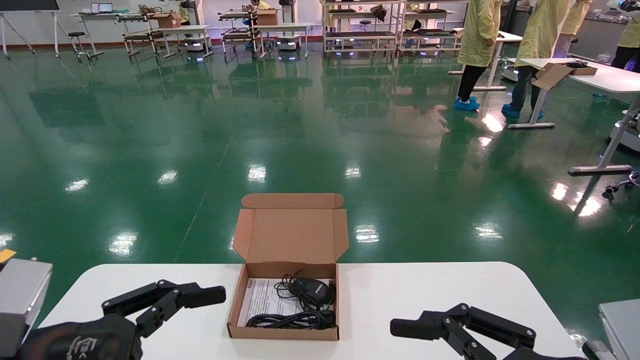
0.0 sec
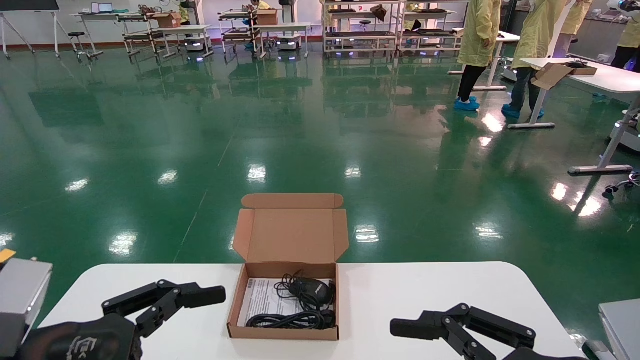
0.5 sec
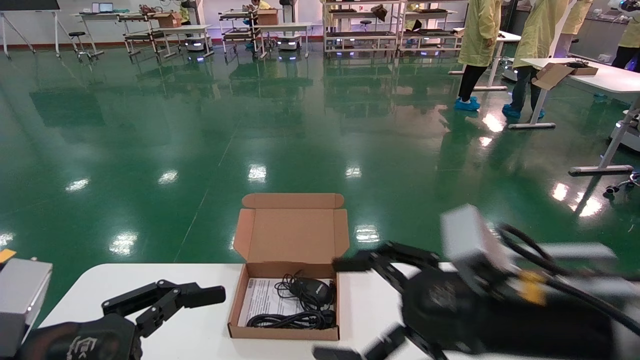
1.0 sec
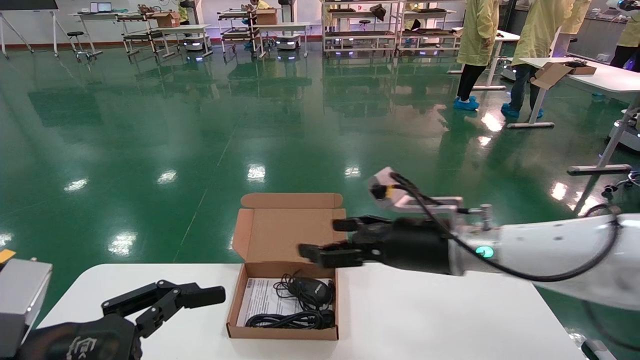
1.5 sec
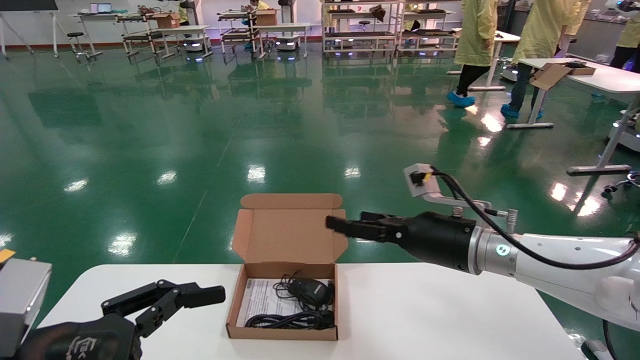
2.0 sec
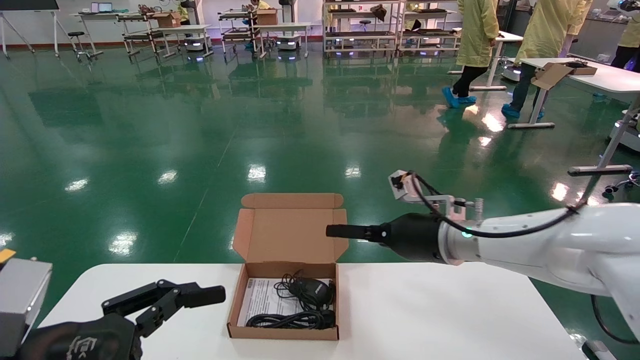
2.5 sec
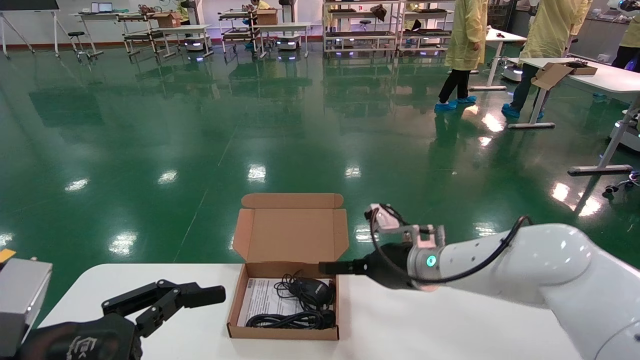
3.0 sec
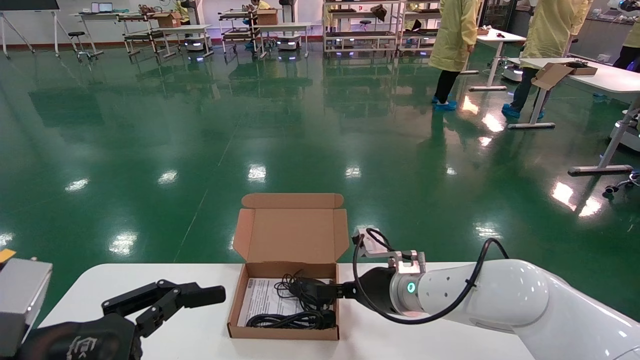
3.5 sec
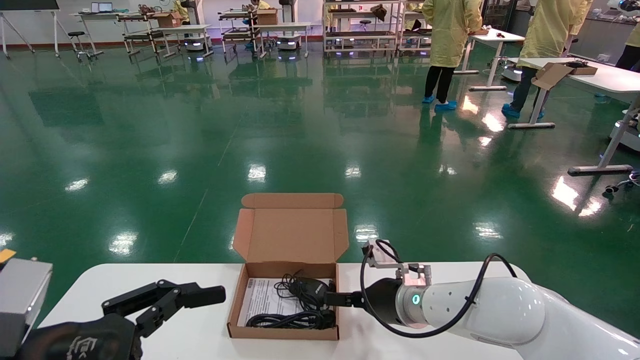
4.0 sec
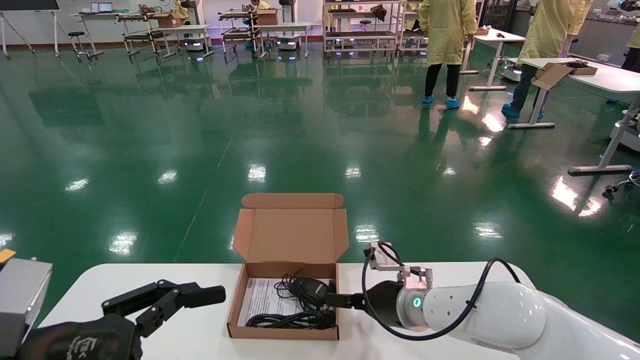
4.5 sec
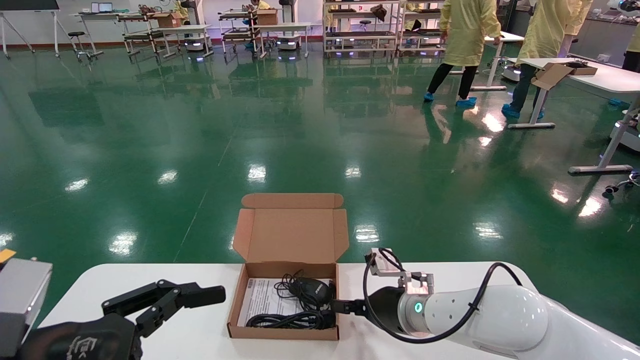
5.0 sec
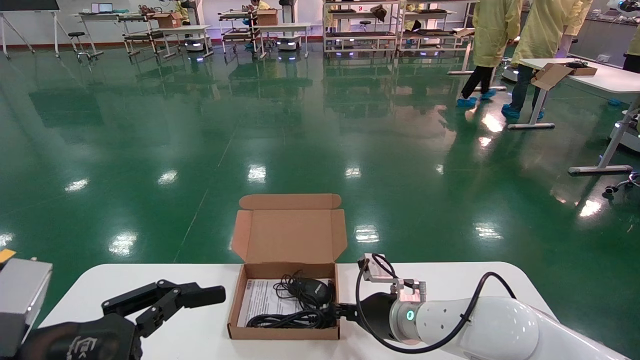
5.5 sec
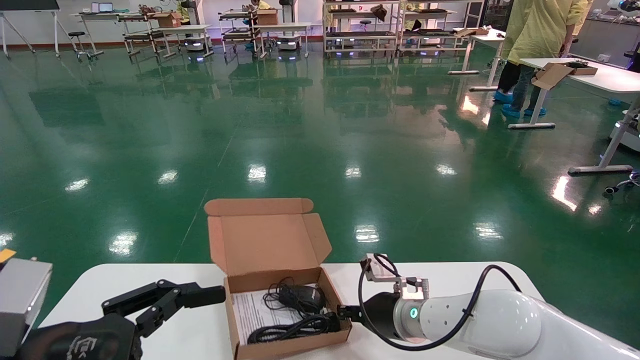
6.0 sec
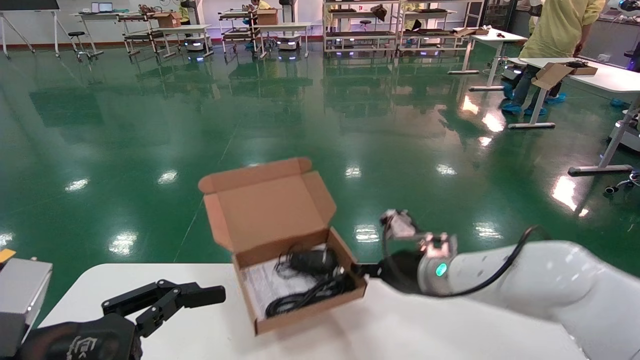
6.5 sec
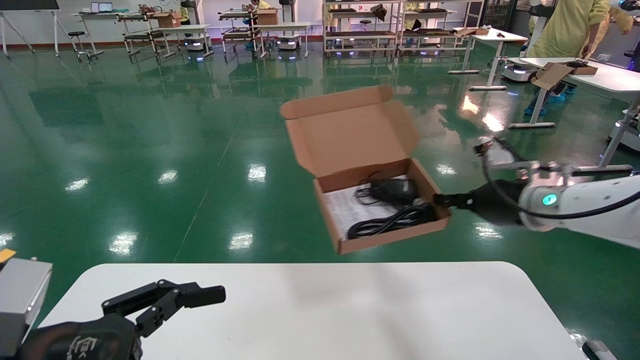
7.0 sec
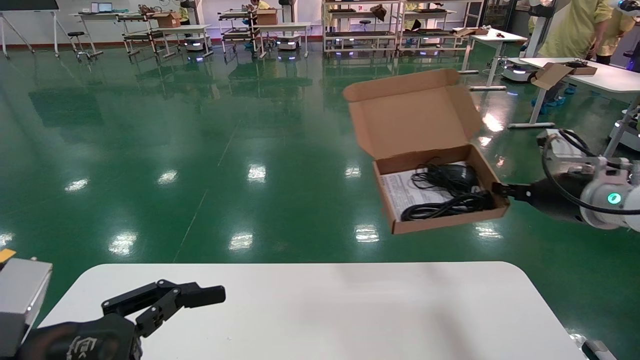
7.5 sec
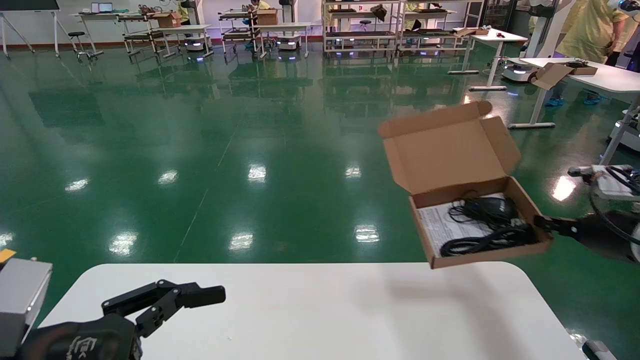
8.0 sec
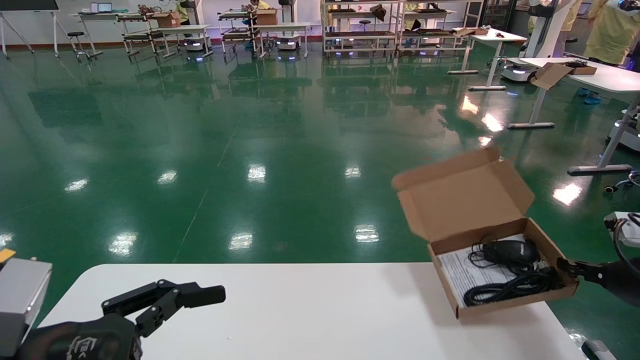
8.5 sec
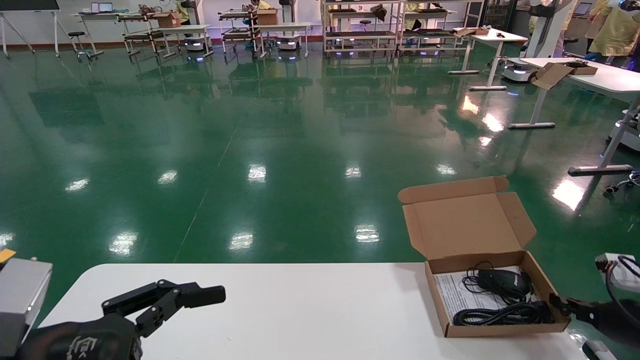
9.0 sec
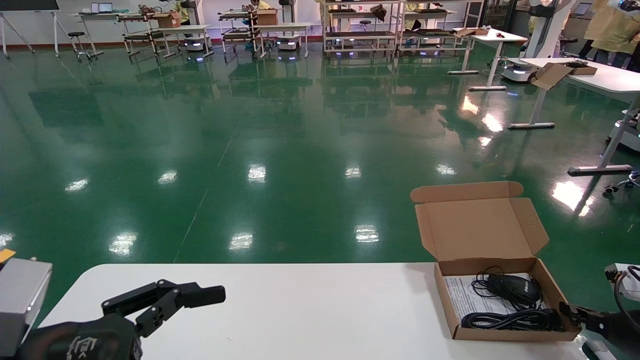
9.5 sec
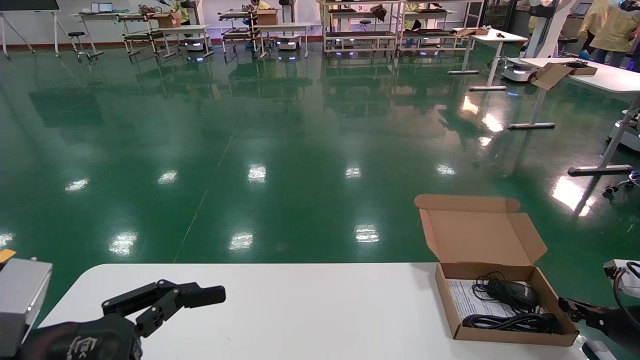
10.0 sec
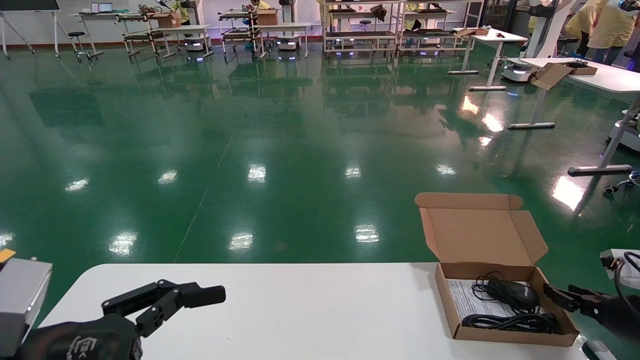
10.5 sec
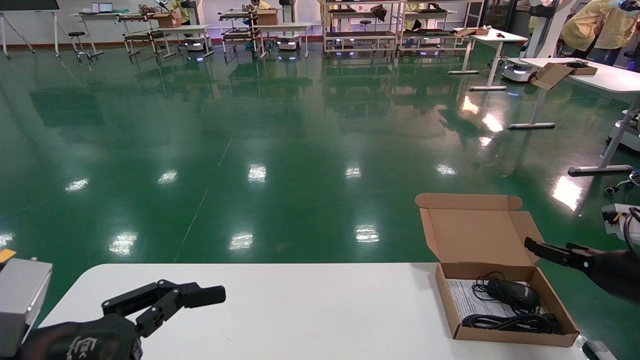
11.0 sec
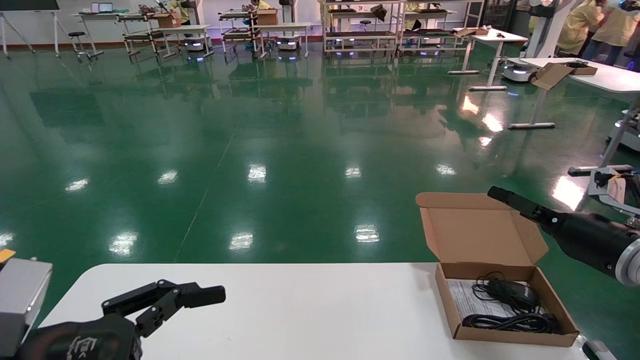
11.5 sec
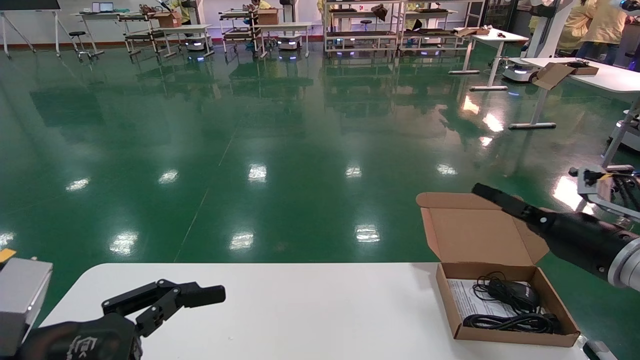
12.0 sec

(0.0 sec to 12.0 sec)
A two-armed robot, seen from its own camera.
Task of the whole recording: move the position of the storage box with accessories on the table.
Step, 1.0 sec - 5.5 sec: Grab and pick up the open mouse box from the accessory packaging area.
Step, 6.0 sec - 10.5 sec: Place the open mouse box onto the operation table.
0.0 sec - 2.0 sec: The right gripper travels forward by roughly 25 cm.
2.0 sec - 4.0 sec: The right gripper goes about 15 cm downward, to the left and forward.
4.0 sec - 6.0 sec: The right gripper closes its fingers.
6.0 sec - 8.0 sec: The right gripper travels to the right and upward by roughly 35 cm.
8.0 sec - 10.0 sec: The right gripper goes roughly 15 cm downward.
10.0 sec - 12.0 sec: The right gripper moves upward and to the left, some 15 cm, and opens up.

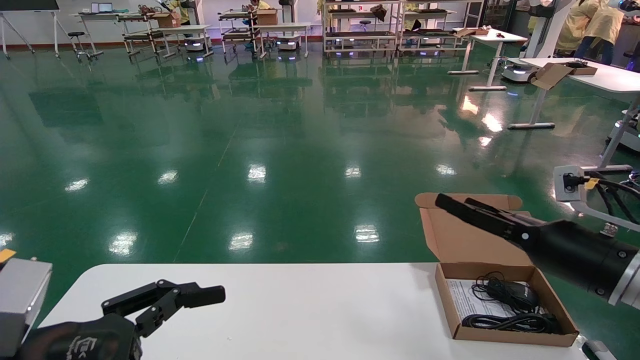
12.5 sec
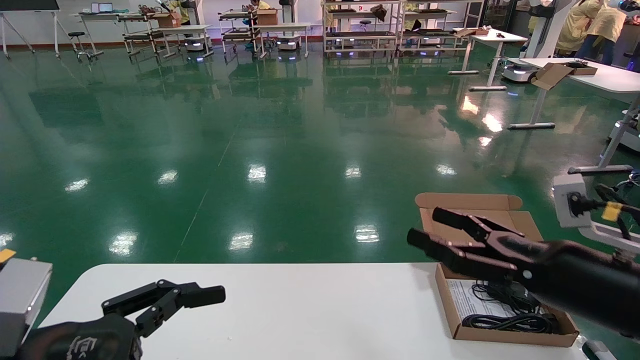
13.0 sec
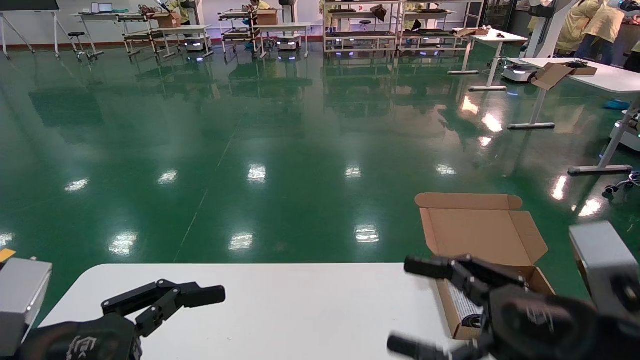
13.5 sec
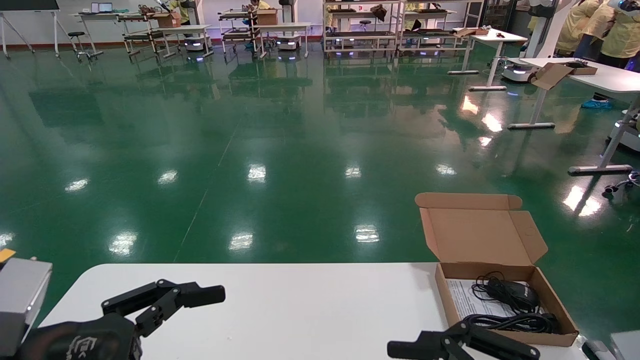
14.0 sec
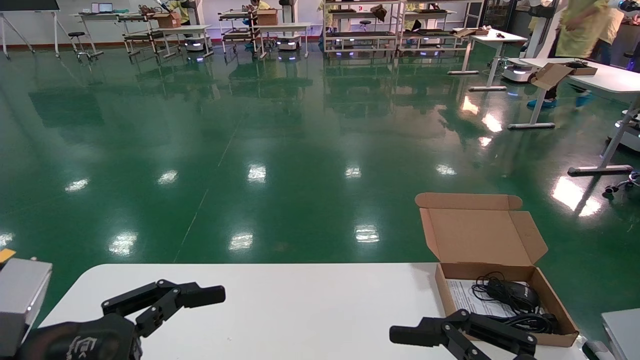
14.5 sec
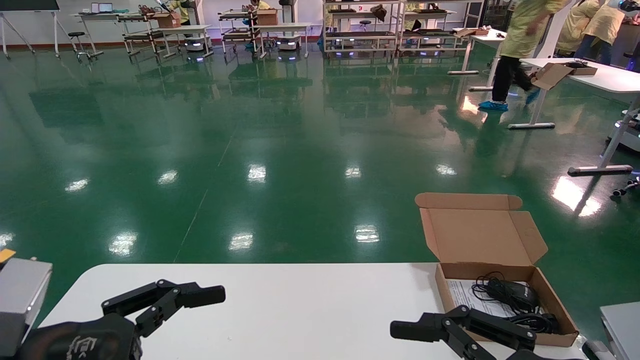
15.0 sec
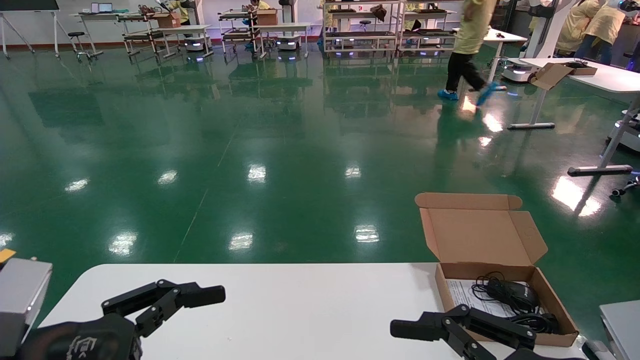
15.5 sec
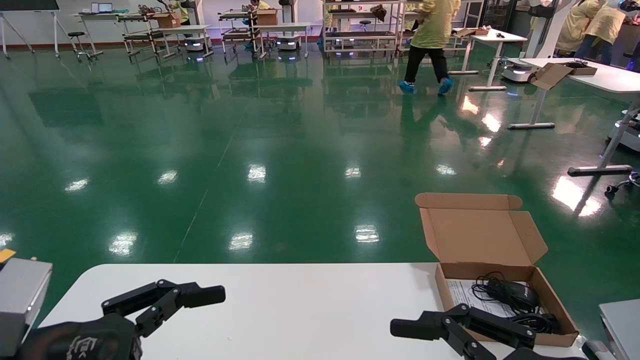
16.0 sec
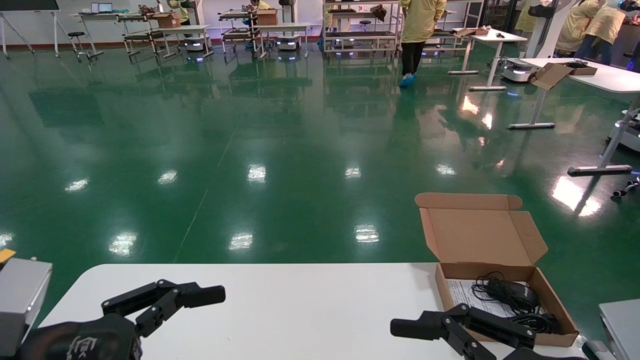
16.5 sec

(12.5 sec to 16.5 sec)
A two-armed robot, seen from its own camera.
Task of the whole recording: move the position of the storage box with accessories on the table.
12.5 sec - 14.5 sec: The right gripper goes about 20 cm backward and to the left.
14.5 sec - 16.5 sec: Both grippers stay put.
